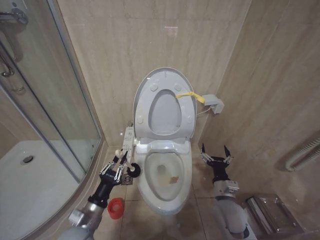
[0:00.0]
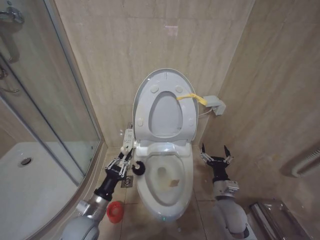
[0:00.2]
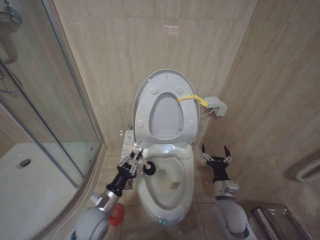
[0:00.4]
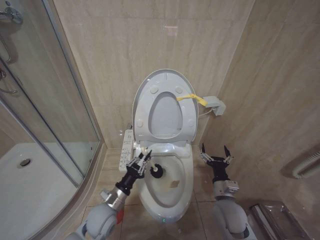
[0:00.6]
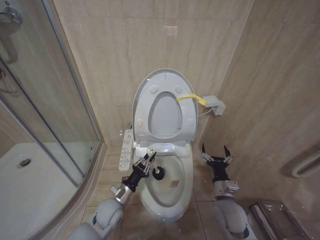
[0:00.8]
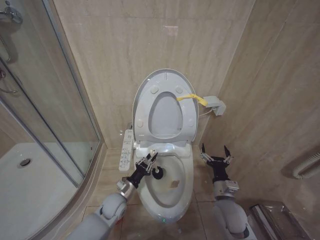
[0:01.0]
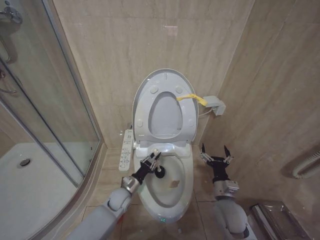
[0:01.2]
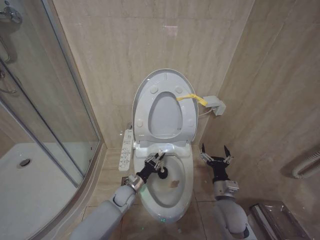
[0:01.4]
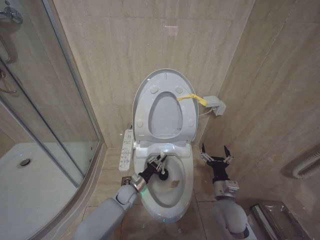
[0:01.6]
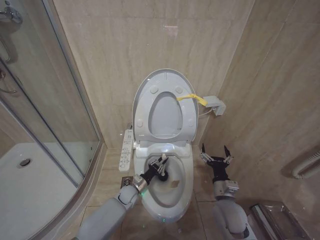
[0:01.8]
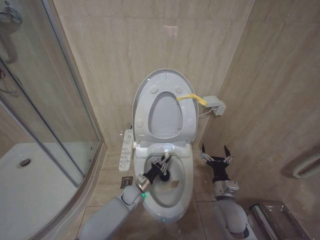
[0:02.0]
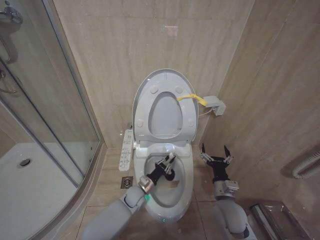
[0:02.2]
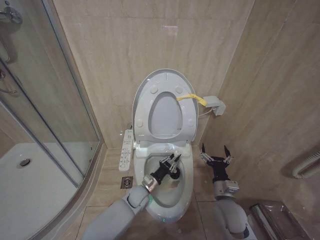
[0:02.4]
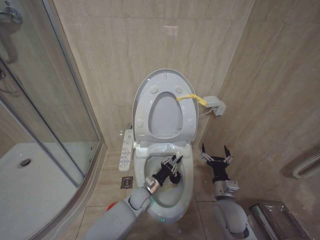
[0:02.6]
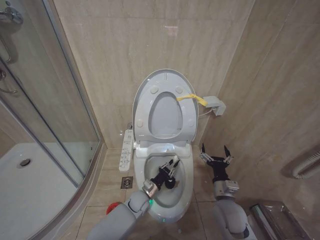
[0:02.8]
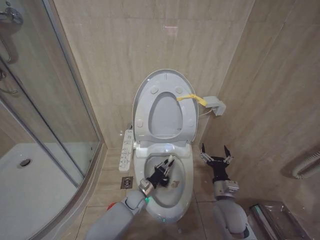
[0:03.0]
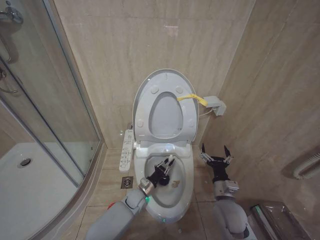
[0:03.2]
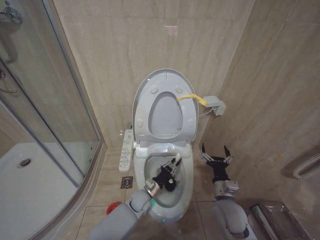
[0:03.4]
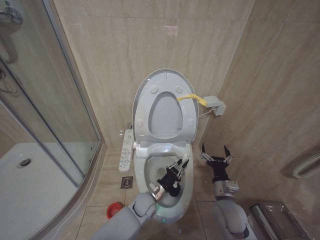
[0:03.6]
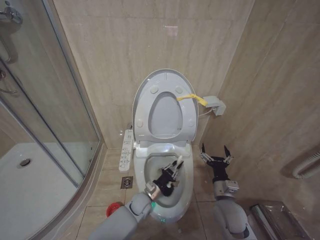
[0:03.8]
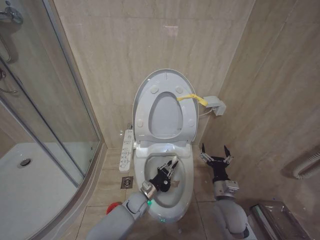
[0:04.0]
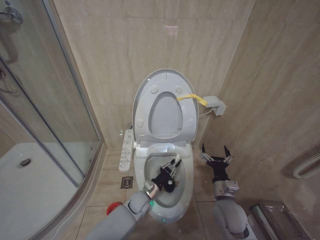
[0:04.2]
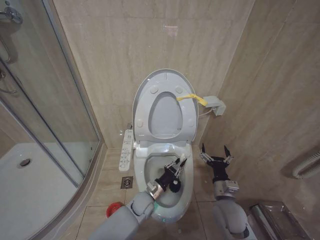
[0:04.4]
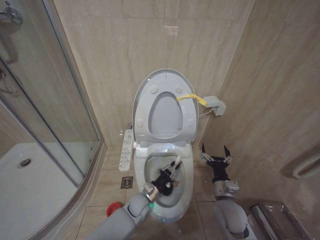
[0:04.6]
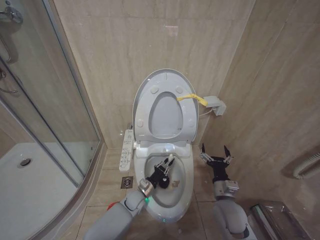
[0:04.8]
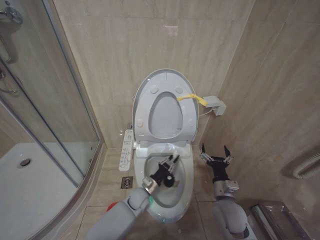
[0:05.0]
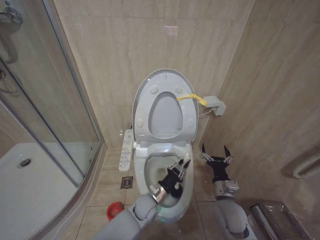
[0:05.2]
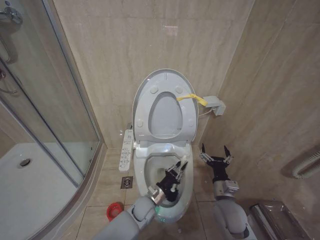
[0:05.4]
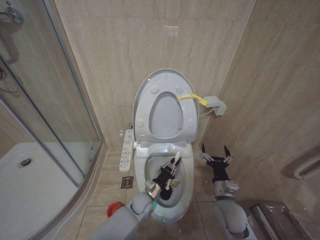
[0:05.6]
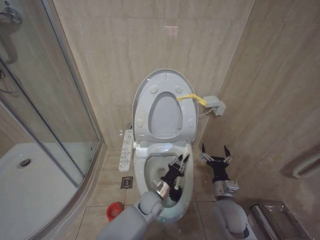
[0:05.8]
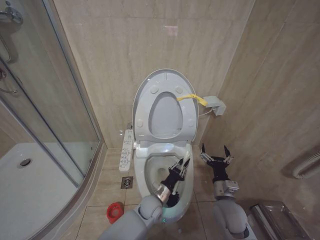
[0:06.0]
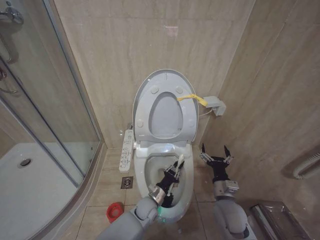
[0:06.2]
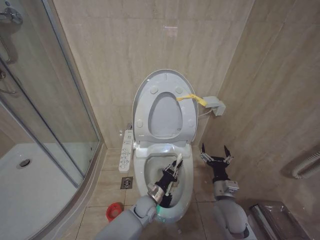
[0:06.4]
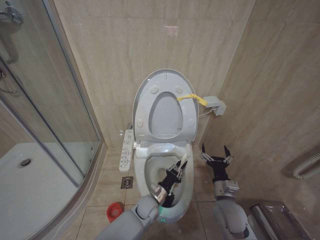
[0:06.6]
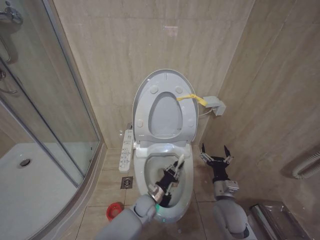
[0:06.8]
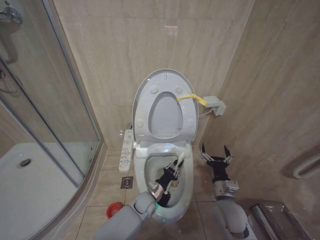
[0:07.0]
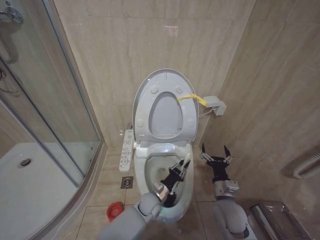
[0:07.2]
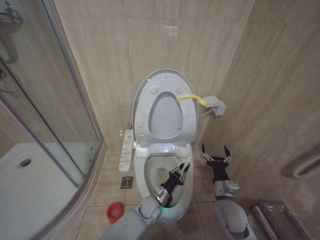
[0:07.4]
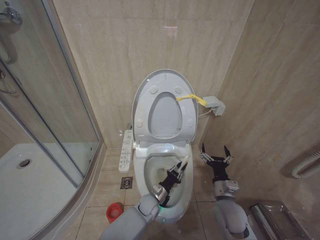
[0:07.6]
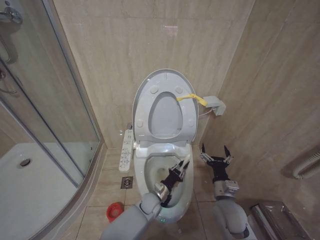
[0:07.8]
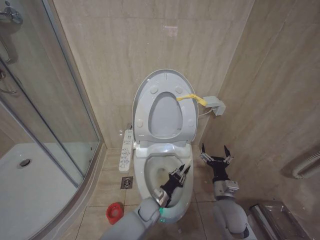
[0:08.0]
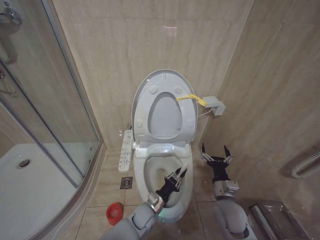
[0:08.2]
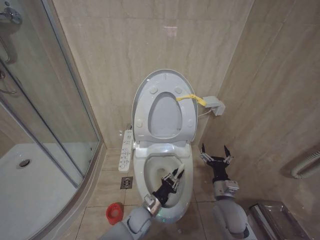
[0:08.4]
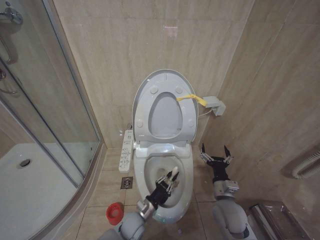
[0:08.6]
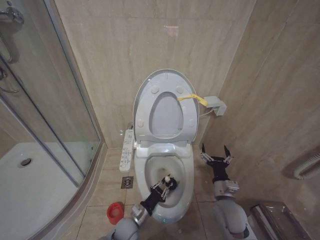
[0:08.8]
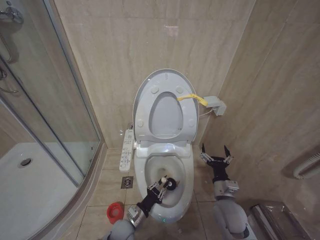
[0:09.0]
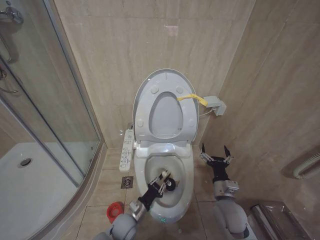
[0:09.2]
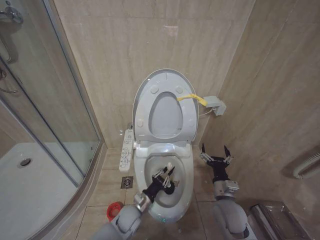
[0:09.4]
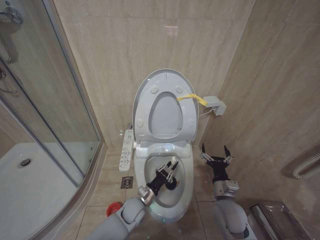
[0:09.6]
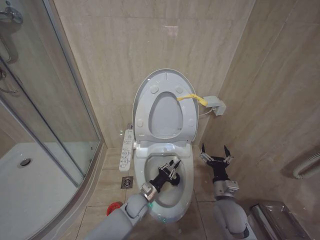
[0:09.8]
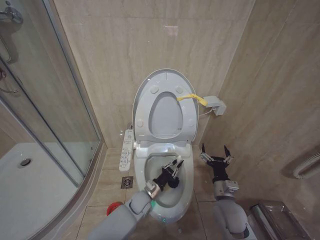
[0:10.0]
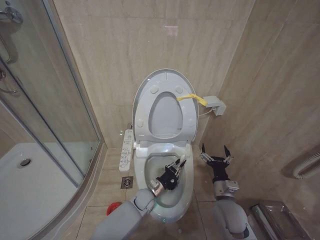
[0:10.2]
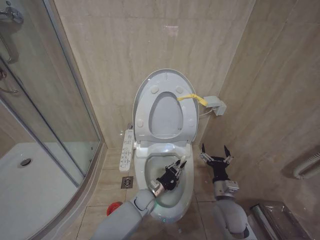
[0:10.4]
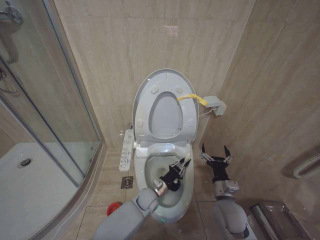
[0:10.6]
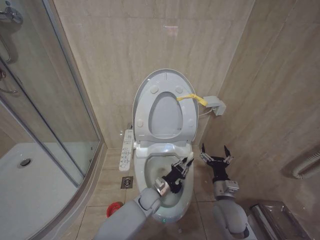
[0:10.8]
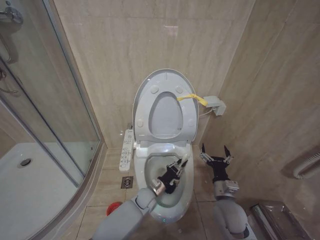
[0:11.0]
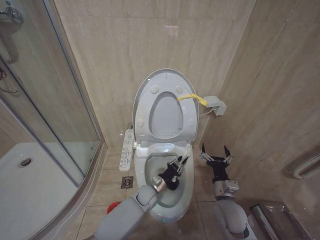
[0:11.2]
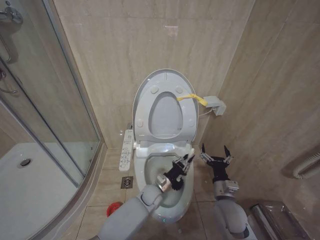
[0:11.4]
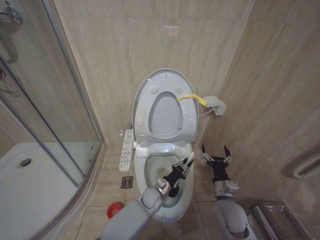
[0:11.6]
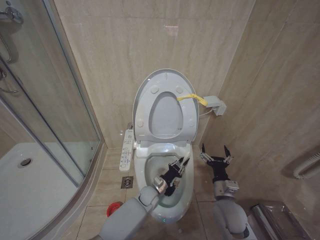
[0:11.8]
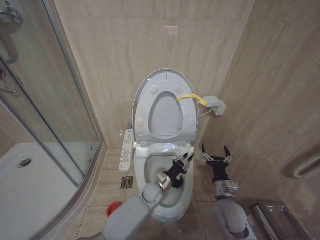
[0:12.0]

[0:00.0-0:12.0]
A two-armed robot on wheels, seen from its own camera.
Task of the whole recording: Open the toilet lid, clean the toilet bowl with a toilet brush, close the toilet lid, and flush.
0:00.0 to 0:01.6: The left gripper goes some 25 cm forward, downward and to the right.
0:01.6 to 0:03.0: The left gripper goes some 5 cm to the right.
0:03.0 to 0:04.4: The left gripper moves approximately 5 cm.
0:04.4 to 0:06.0: The grippers make only small movements.
0:06.0 to 0:07.6: The left gripper heads downward, covering about 5 cm.
0:07.6 to 0:09.0: The left gripper heads to the left and backward, covering roughly 15 cm.
0:09.0 to 0:10.4: The left gripper heads forward and to the right, covering about 15 cm.
0:10.4 to 0:12.0: There are only small adjustments of the grippers.

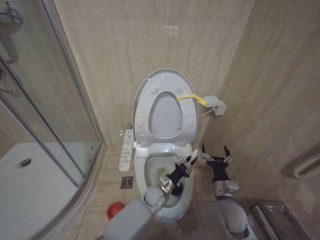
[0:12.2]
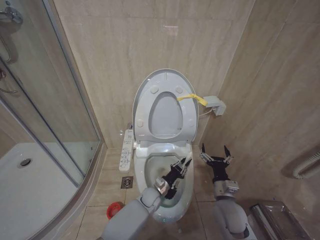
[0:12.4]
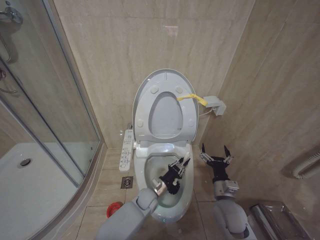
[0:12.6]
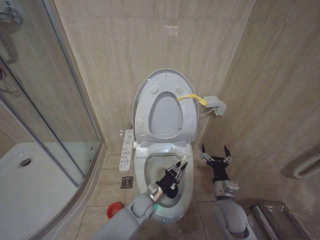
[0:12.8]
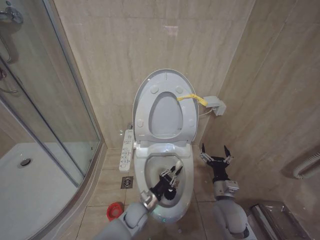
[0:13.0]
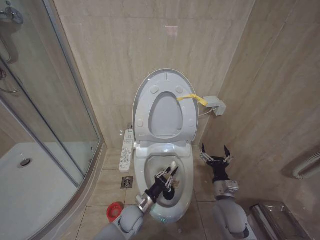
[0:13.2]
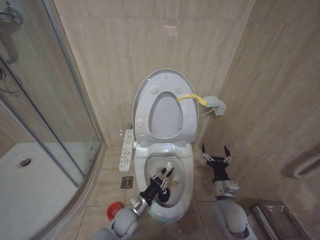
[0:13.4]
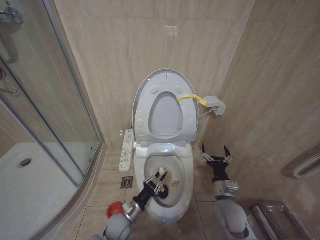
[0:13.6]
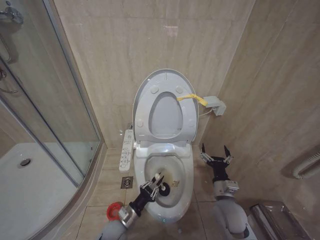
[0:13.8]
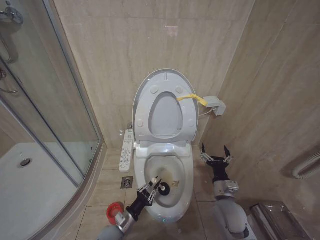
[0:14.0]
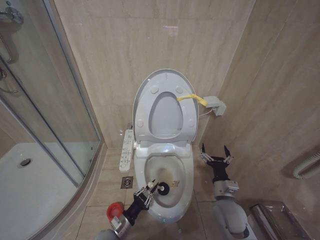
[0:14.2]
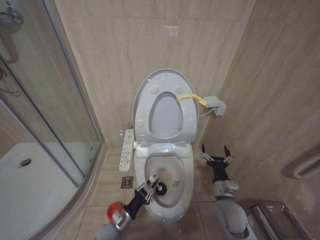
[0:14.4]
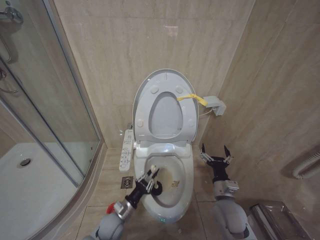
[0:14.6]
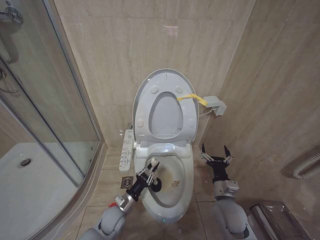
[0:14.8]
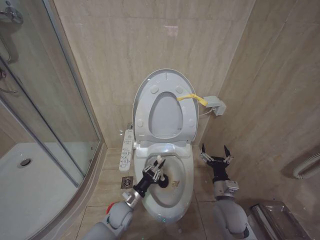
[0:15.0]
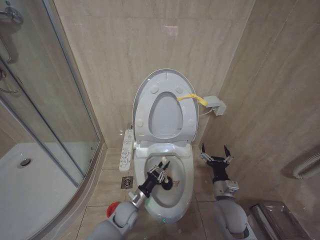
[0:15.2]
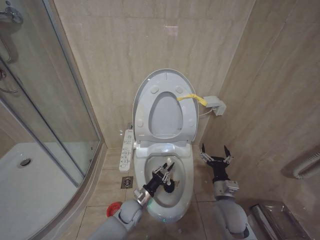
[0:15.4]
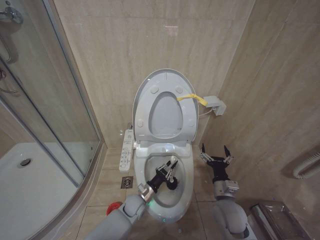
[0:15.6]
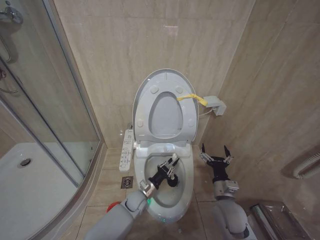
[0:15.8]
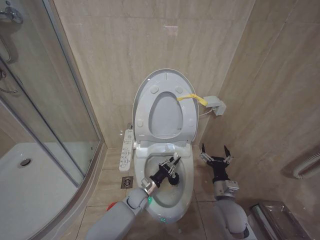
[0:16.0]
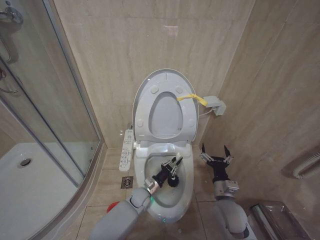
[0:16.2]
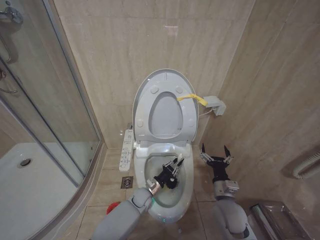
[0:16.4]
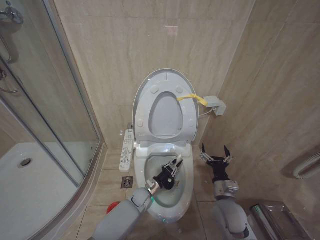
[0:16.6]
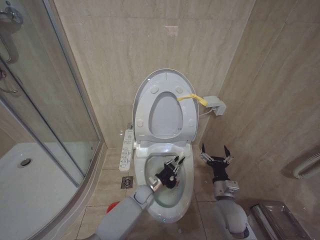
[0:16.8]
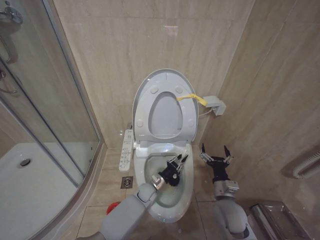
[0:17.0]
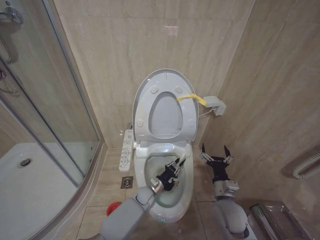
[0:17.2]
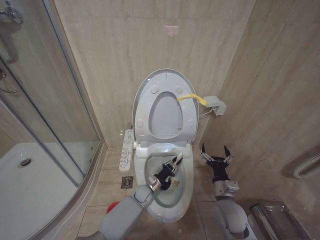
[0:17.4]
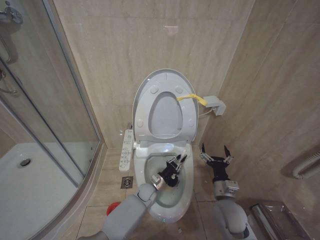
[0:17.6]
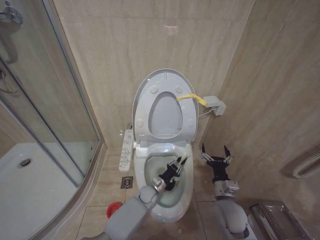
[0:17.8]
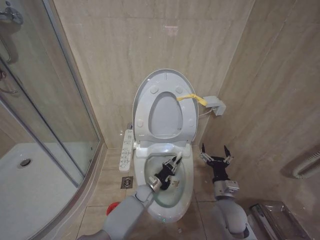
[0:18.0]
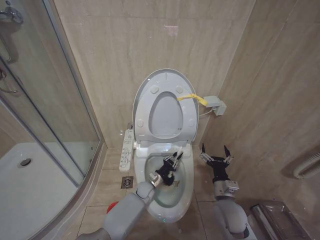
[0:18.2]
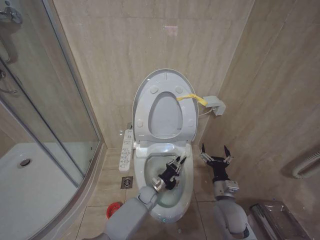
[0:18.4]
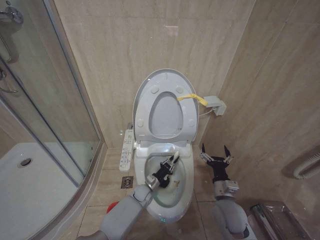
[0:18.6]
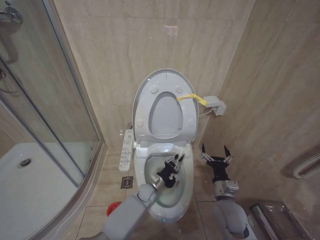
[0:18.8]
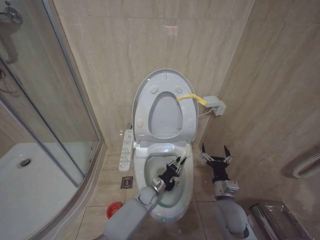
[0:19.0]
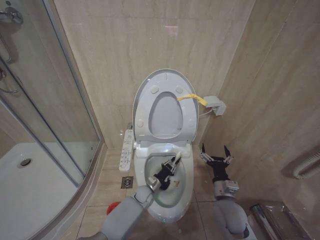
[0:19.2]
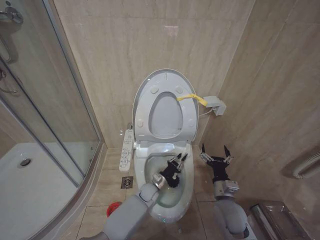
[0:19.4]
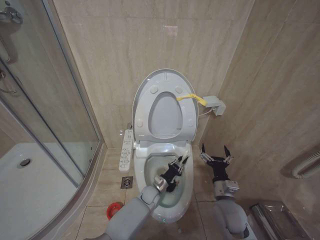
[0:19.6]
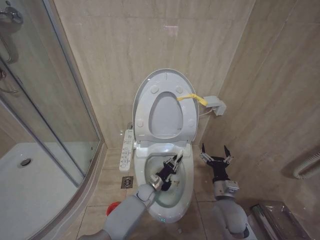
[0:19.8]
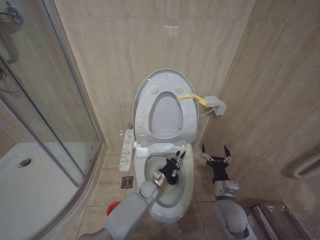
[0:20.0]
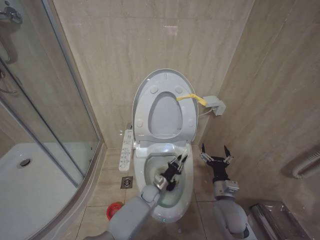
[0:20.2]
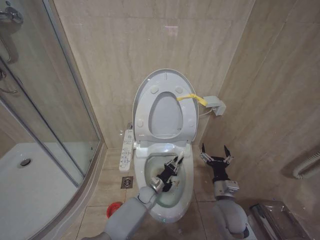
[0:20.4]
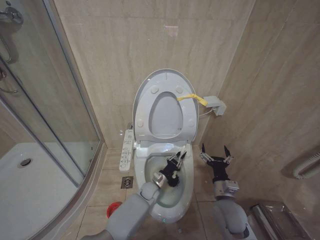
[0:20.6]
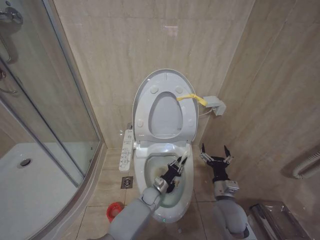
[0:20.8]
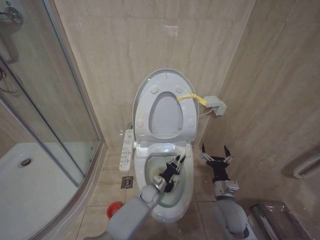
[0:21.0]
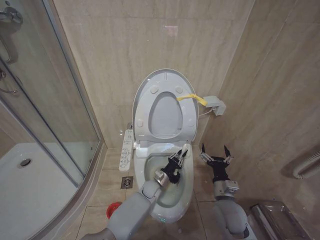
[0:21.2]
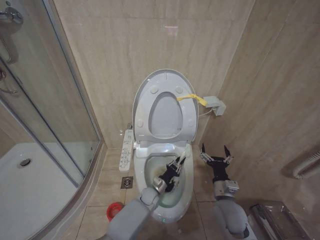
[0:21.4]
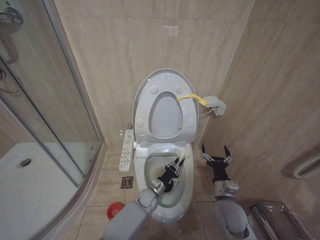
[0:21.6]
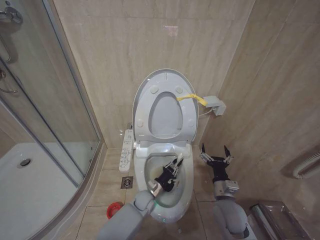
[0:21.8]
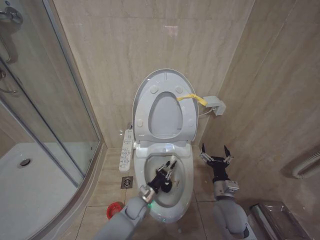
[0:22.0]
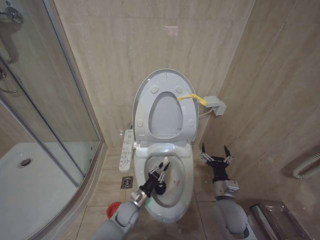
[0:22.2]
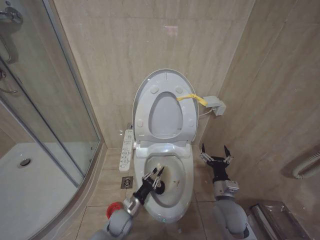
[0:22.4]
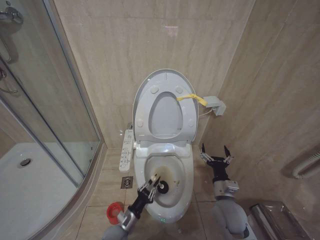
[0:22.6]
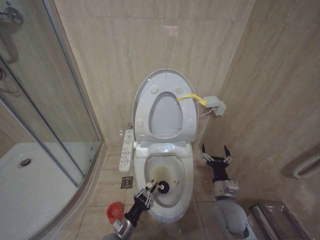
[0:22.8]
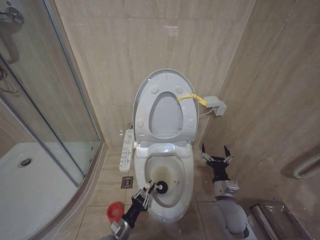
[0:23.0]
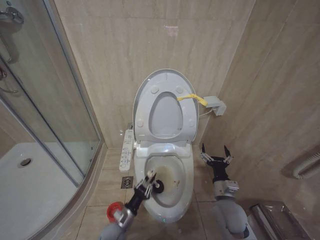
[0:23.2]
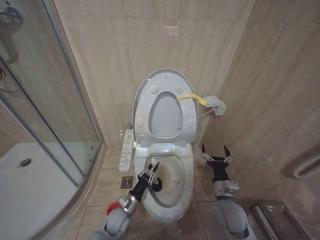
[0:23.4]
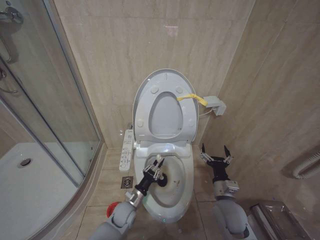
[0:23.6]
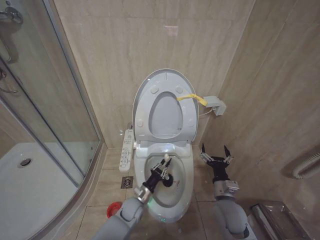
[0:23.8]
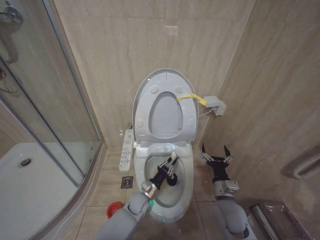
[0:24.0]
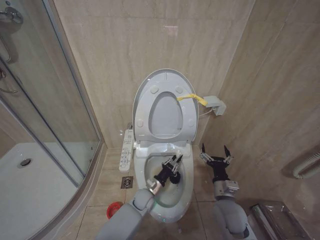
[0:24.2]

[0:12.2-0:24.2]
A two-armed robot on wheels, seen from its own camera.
Task of the whole recording: Open the toilet lid, clean the toilet bowl with a toilet brush, close the toilet lid, and flush.
0:12.2 to 0:13.8: The left gripper heads to the left and backward, covering approximately 20 cm.
0:13.8 to 0:15.2: The left gripper heads forward, covering roughly 5 cm.
0:15.2 to 0:16.6: The left gripper heads forward and to the right, covering some 10 cm.
0:16.6 to 0:18.2: There are only small adjustments of the grippers.
0:19.8 to 0:21.2: The grippers move only a little.
0:21.2 to 0:22.6: The left gripper travels backward and to the left by roughly 20 cm.
0:22.6 to 0:24.2: The left gripper shifts approximately 15 cm forward and to the right.
